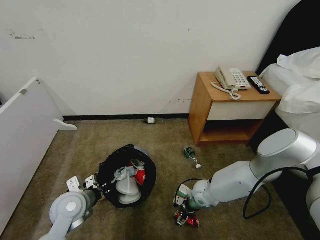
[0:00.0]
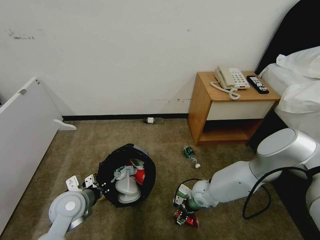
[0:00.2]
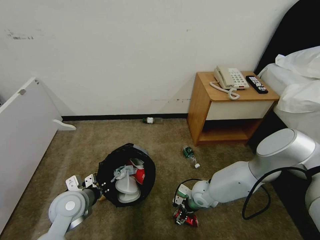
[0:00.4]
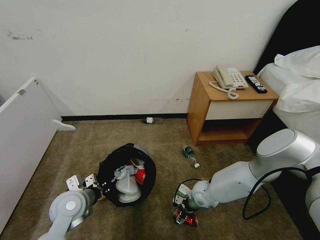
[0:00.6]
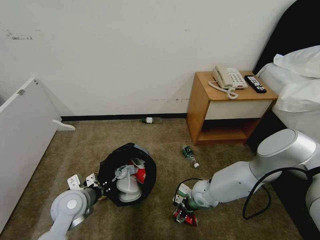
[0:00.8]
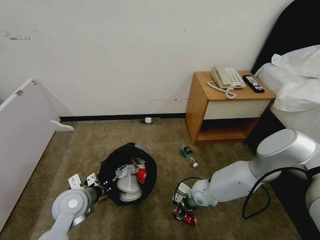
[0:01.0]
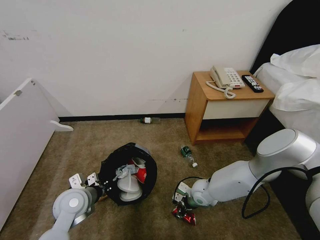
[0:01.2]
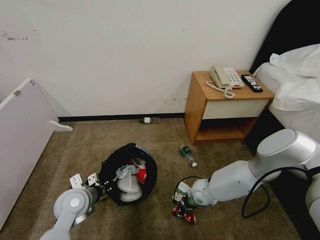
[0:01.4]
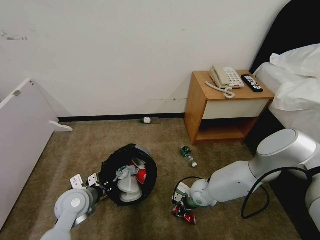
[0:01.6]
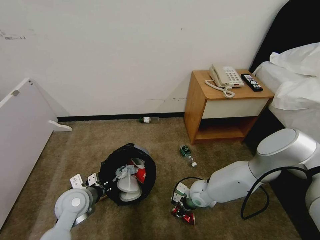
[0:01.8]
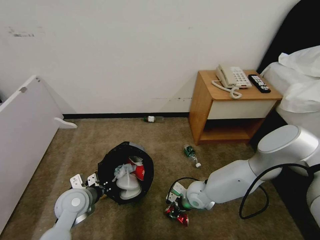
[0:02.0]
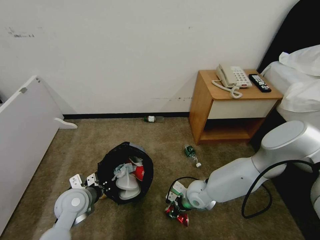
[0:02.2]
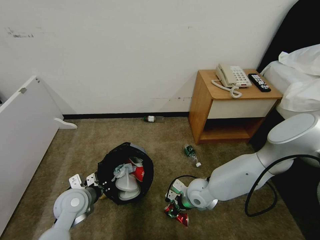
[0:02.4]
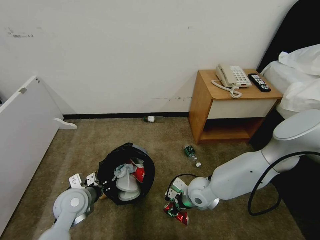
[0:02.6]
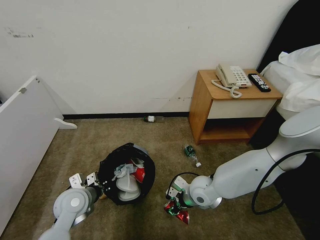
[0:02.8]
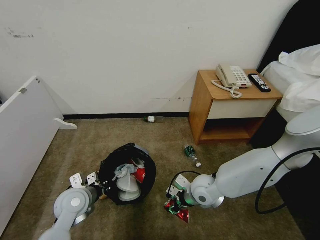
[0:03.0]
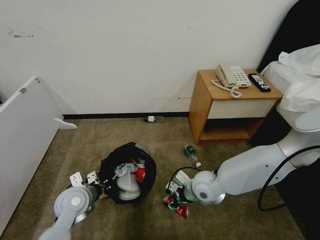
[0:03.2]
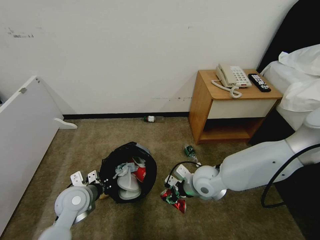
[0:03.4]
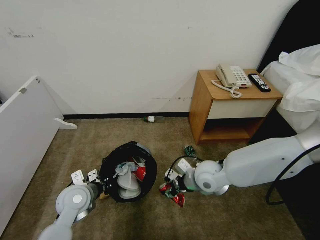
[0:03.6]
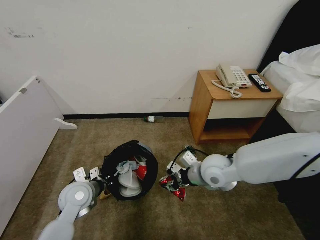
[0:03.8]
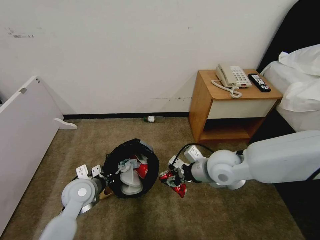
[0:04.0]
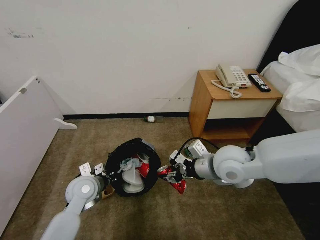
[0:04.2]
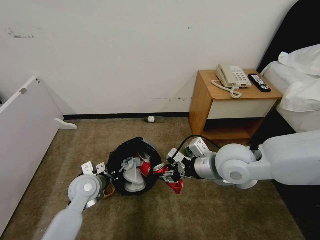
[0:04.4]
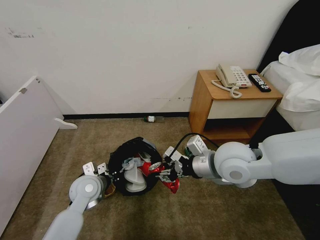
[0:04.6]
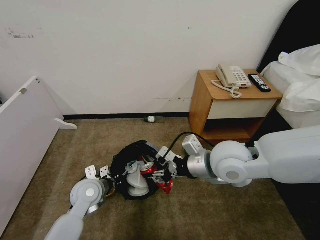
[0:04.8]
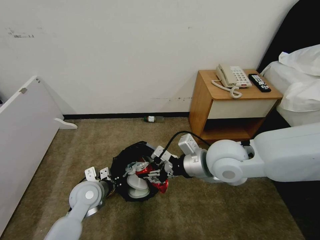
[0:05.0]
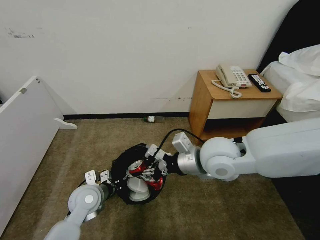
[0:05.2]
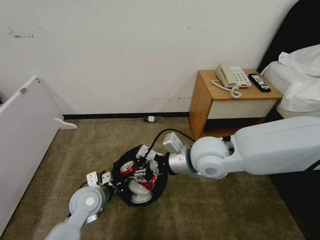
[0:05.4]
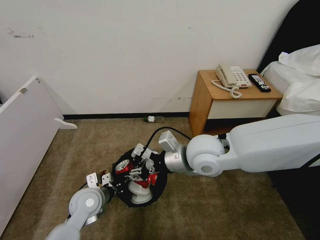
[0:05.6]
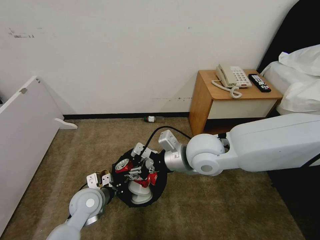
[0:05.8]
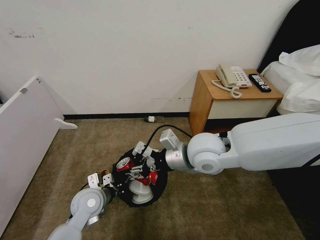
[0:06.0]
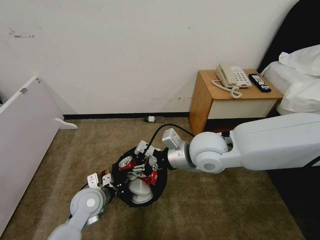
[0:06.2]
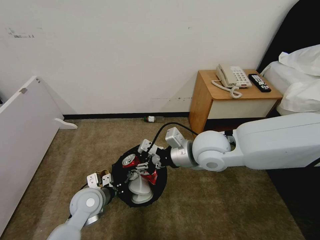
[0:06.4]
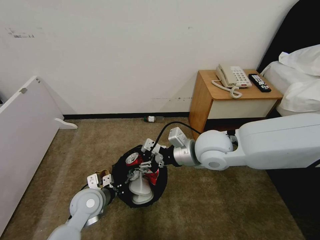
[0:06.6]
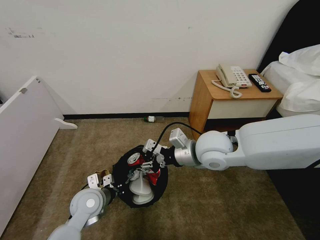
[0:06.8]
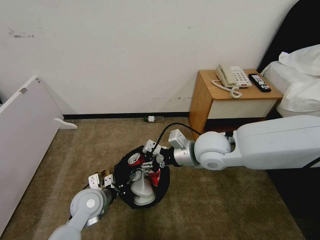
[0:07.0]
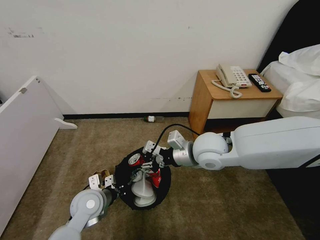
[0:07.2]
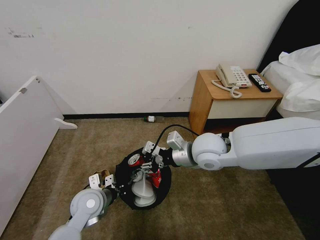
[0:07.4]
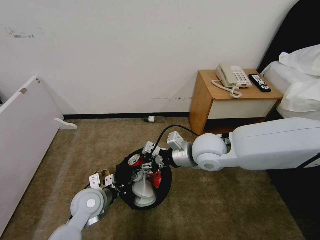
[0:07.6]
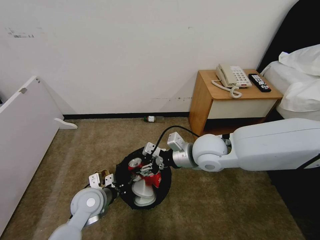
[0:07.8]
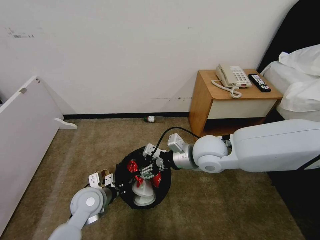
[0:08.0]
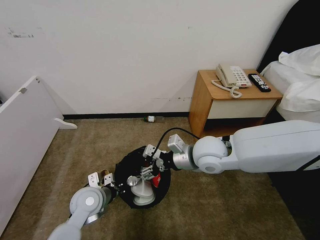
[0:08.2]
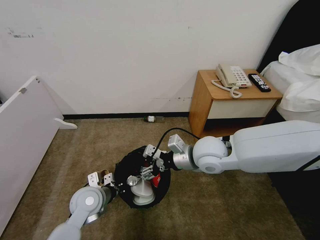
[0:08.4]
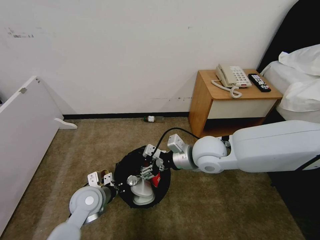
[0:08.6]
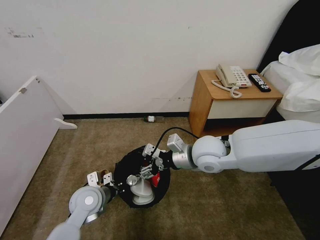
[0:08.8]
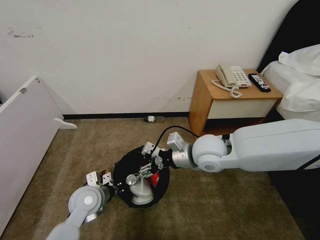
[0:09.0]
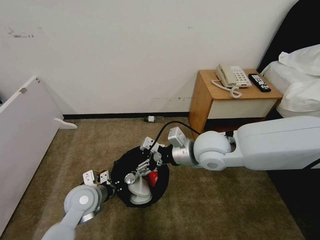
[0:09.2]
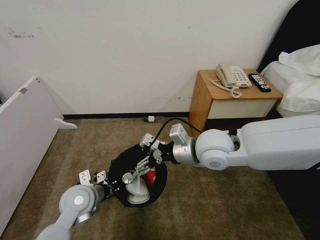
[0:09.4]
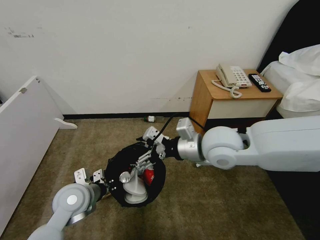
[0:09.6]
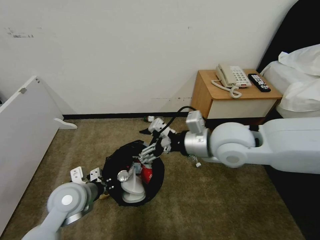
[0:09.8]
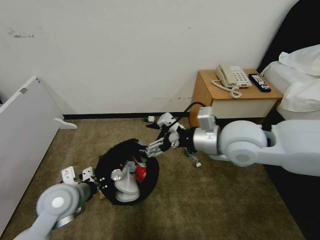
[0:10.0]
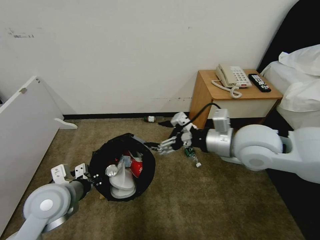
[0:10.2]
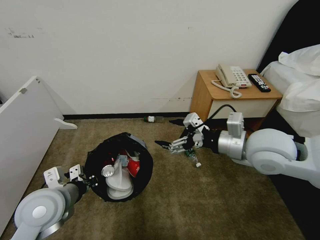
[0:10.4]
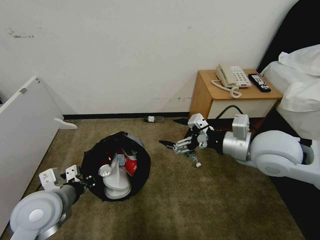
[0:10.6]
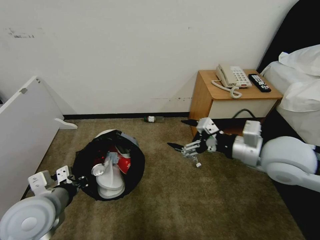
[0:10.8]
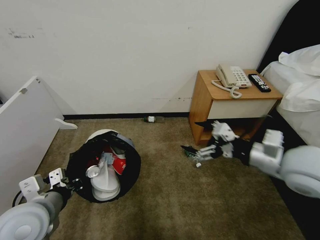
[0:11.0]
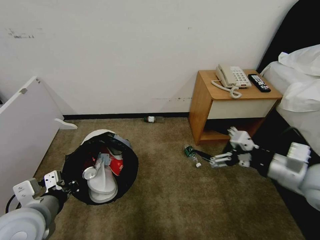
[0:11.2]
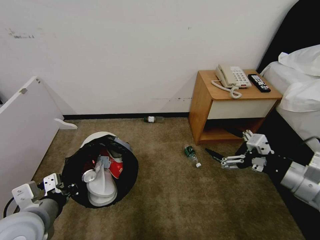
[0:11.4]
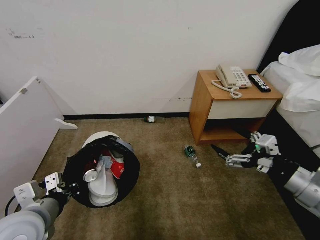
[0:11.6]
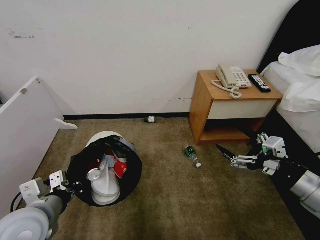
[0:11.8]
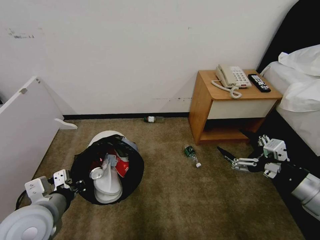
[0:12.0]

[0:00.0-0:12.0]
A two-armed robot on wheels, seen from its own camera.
Task of the whole recording: Pick up the trash bin and place the garbage on the floor into it.
0:00.0 to 0:01.6: The right gripper closes.
0:01.6 to 0:03.0: The right gripper shifts roughly 10 cm upward.
0:03.0 to 0:04.4: The left gripper changes place by roughly 5 cm. Meanwhile the right gripper goes roughly 20 cm upward.
0:04.4 to 0:06.0: The right gripper heads to the left, covering roughly 5 cm.
0:06.0 to 0:07.6: The grippers move only a little.
0:07.6 to 0:09.0: Both grippers stay put.
0:09.0 to 0:10.4: The right gripper is displaced to the right and upward by approximately 10 cm, while the left gripper heads upward, covering approximately 10 cm.
0:10.4 to 0:12.0: The right gripper is displaced backward and to the right by about 20 cm.

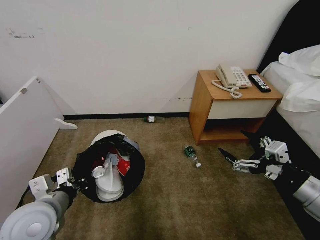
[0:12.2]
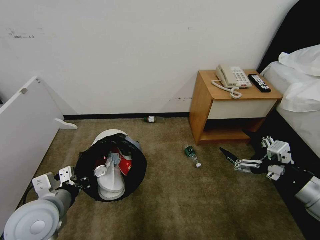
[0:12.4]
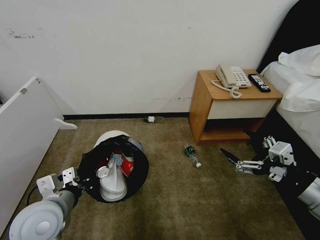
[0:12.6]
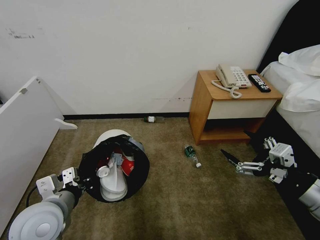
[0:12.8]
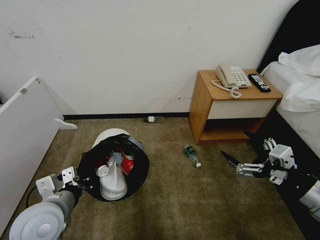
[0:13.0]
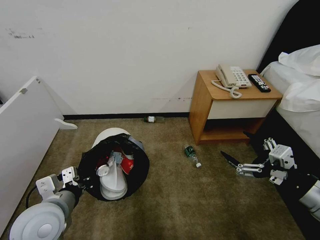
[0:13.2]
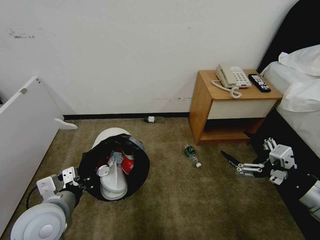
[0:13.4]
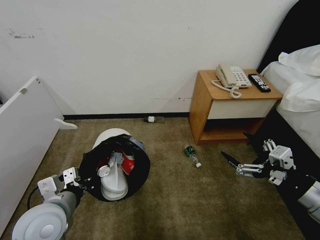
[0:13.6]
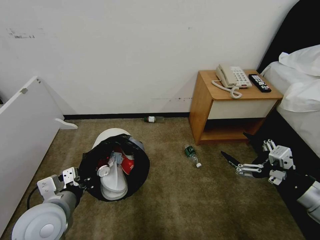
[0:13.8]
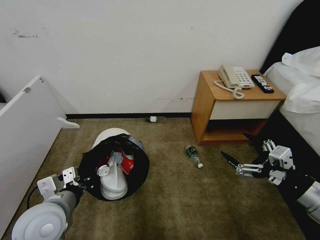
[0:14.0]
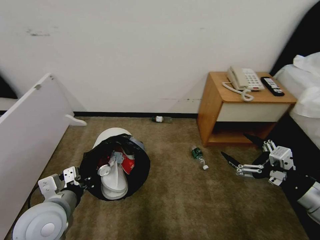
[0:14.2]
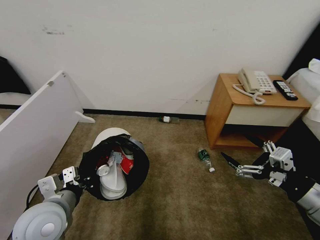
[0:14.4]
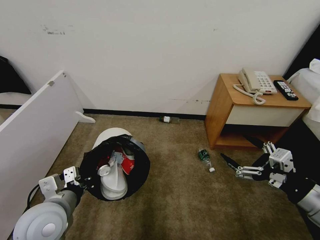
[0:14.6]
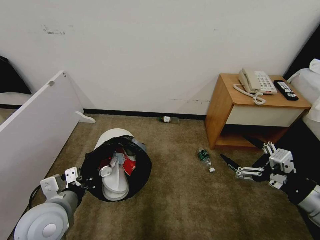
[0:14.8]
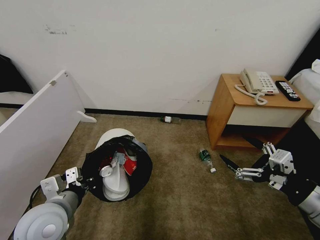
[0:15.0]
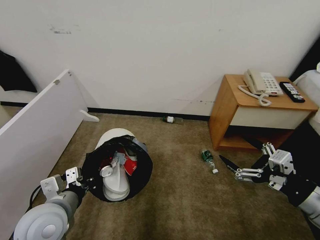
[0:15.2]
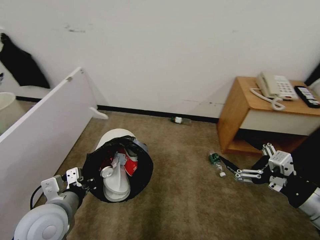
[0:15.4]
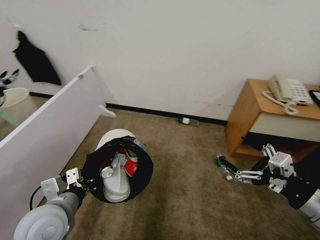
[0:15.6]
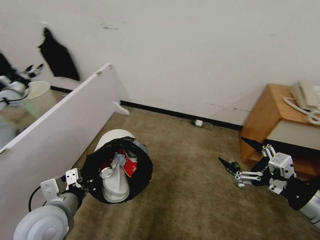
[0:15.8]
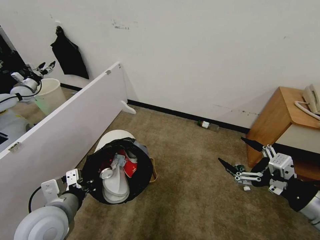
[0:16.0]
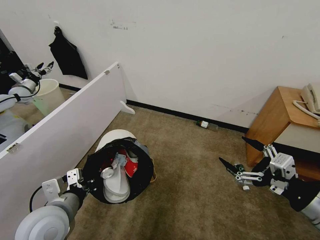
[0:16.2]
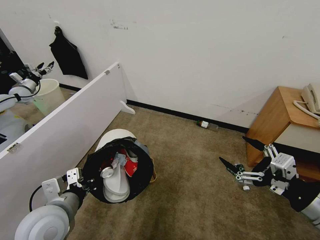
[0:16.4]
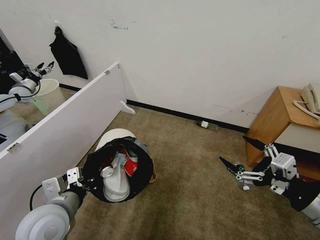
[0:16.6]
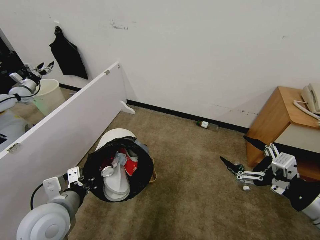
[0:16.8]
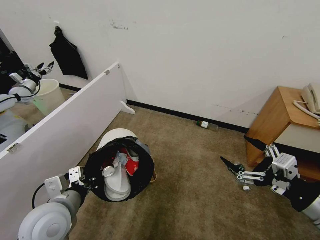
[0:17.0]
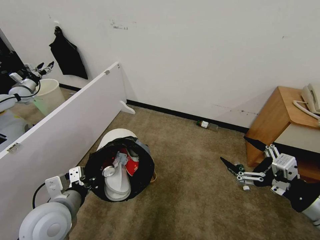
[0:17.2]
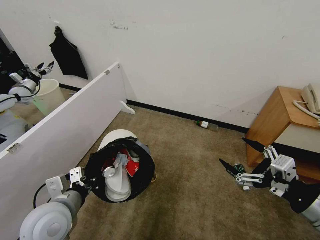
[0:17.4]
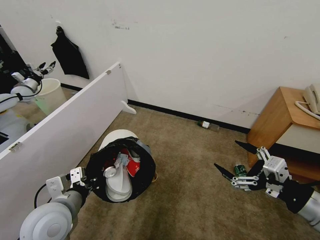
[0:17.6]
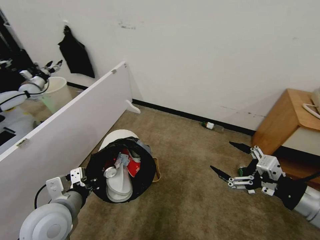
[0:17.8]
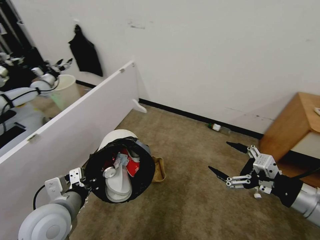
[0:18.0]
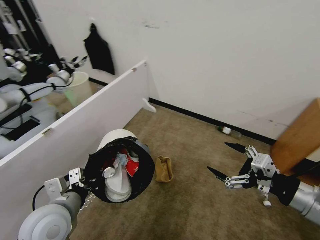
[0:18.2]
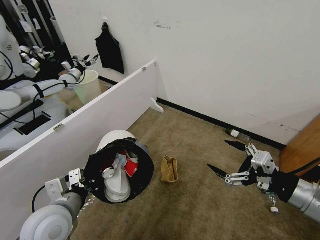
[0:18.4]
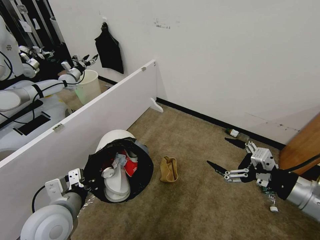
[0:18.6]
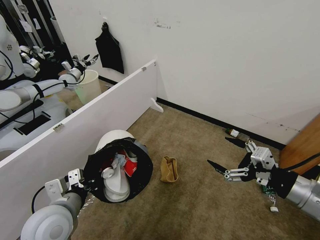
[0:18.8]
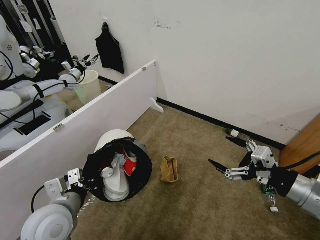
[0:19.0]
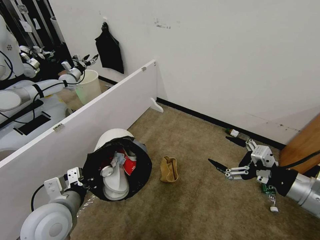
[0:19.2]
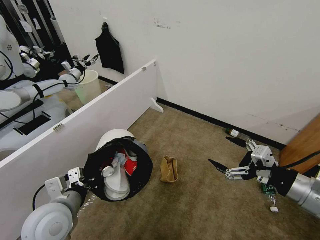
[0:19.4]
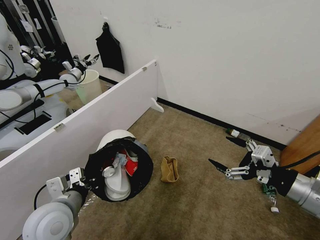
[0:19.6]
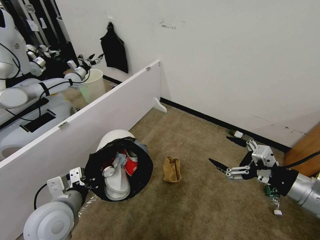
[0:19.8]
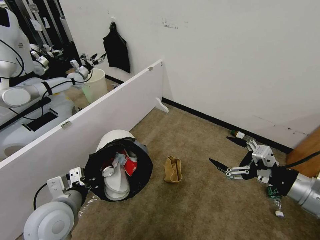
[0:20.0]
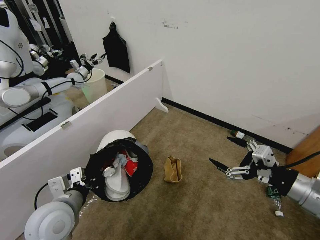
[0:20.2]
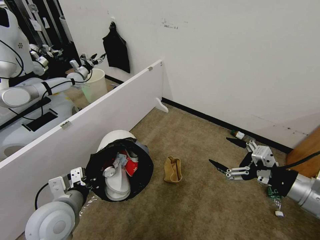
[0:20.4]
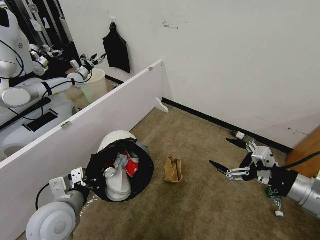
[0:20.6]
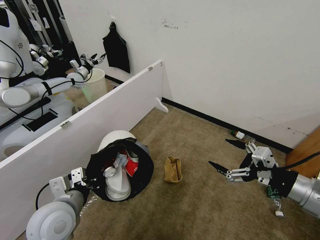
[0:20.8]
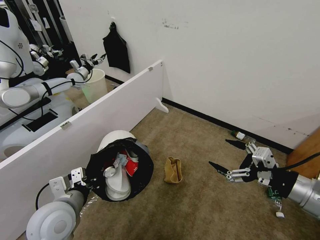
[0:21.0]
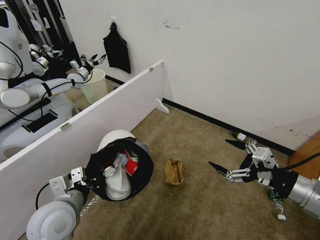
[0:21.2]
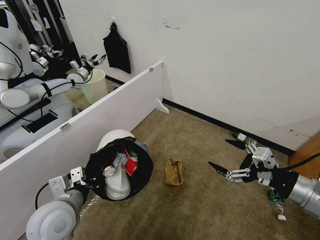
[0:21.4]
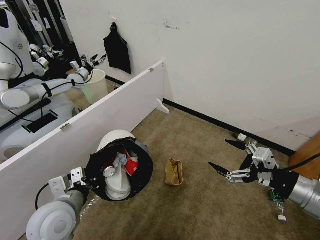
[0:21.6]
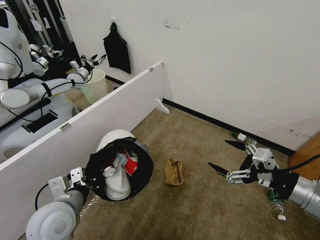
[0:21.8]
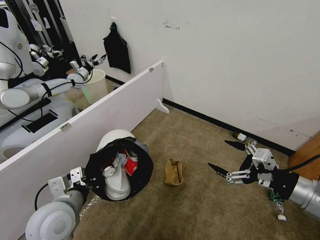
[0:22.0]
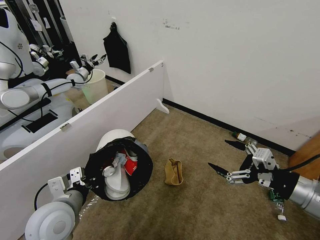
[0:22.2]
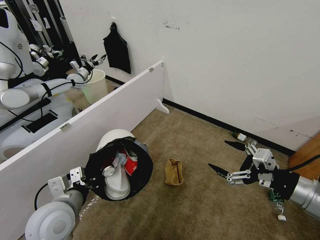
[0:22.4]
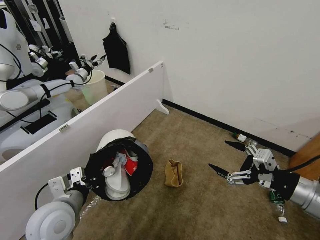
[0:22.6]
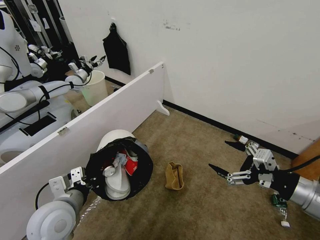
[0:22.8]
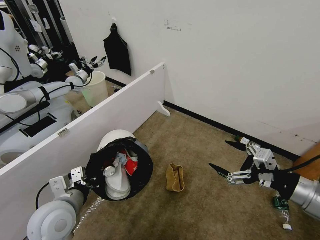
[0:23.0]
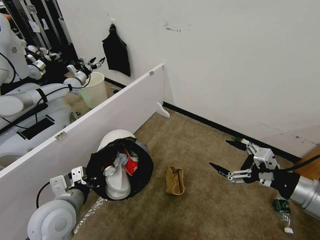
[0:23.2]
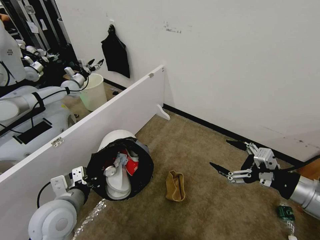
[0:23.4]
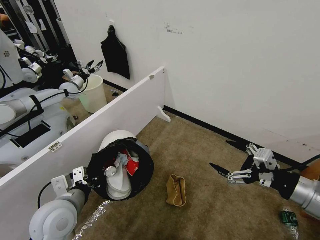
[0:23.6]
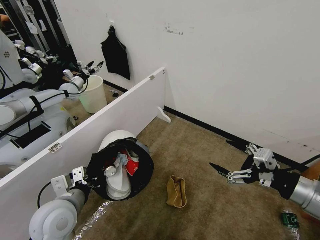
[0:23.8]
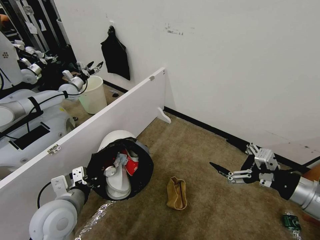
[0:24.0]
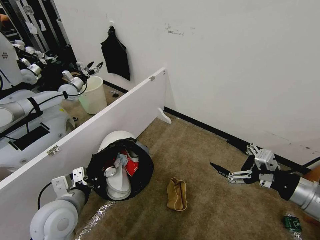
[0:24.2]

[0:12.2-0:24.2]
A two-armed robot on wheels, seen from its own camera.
Task of the whole recording: Pick up the trash bin and place the garbage on the floor into it.
0:12.2 to 0:13.8: There are only small adjustments of the grippers.
0:19.8 to 0:22.6: Both grippers stay put.
